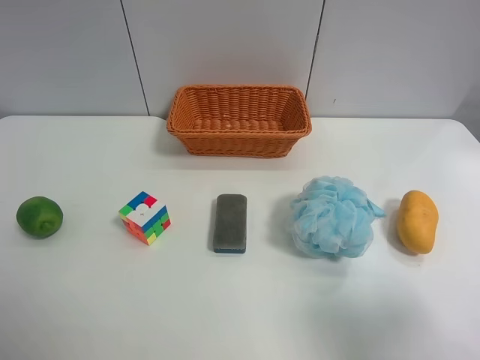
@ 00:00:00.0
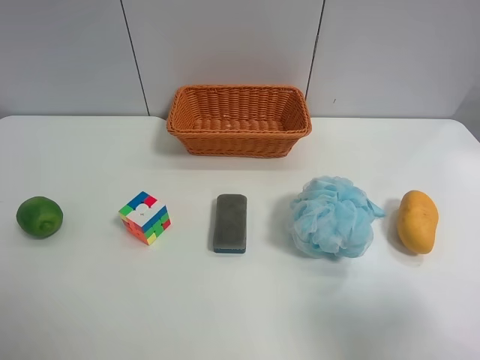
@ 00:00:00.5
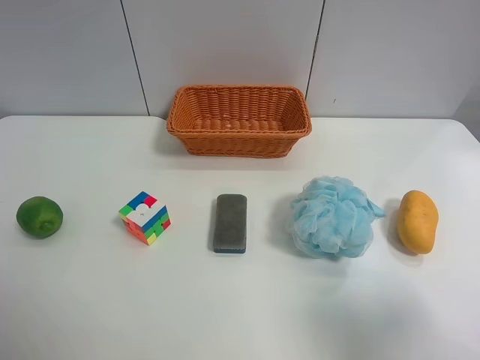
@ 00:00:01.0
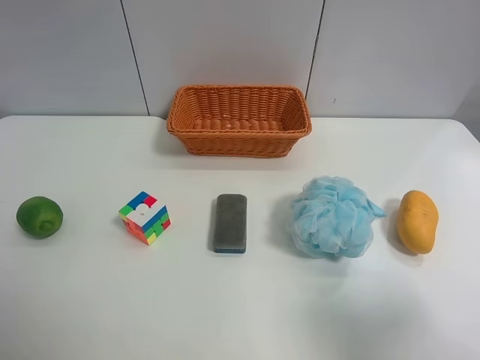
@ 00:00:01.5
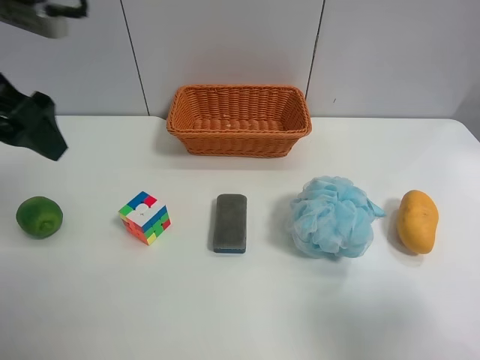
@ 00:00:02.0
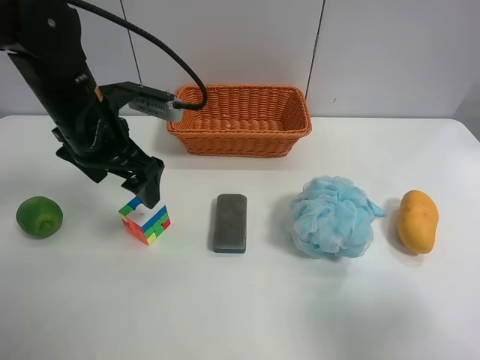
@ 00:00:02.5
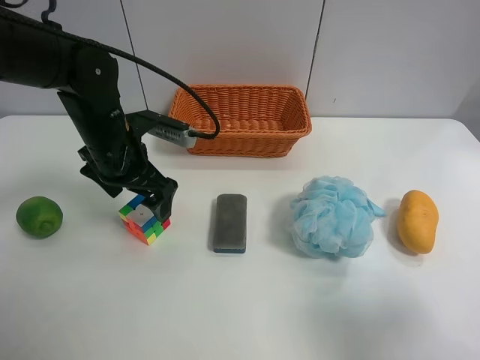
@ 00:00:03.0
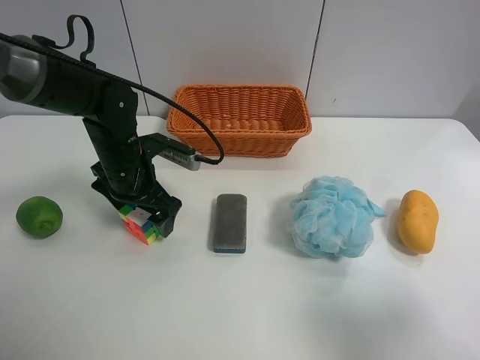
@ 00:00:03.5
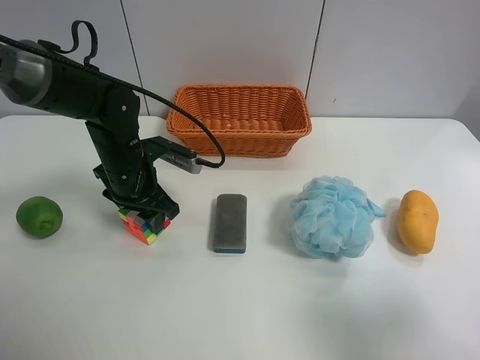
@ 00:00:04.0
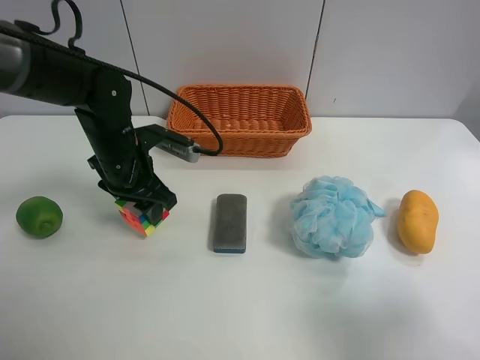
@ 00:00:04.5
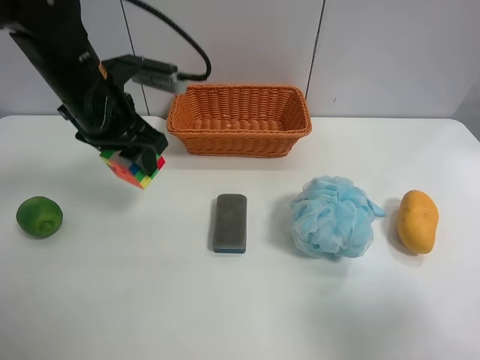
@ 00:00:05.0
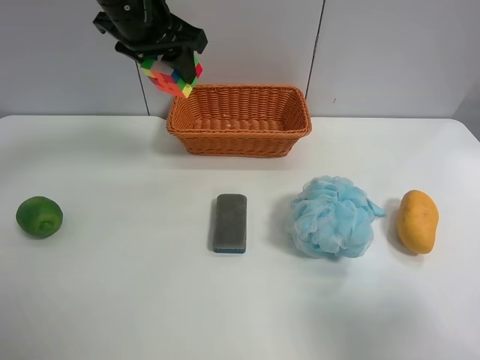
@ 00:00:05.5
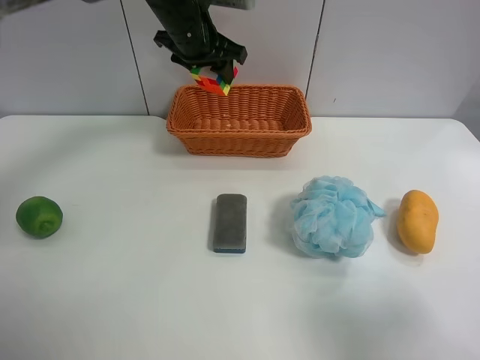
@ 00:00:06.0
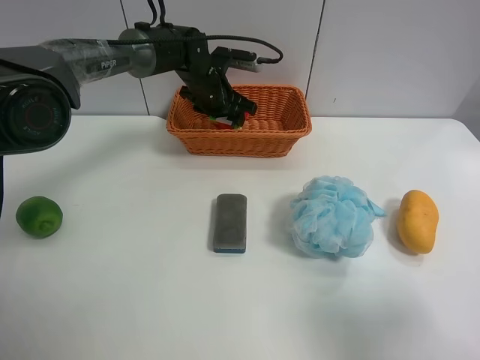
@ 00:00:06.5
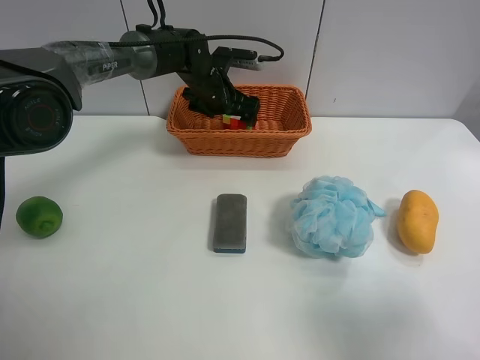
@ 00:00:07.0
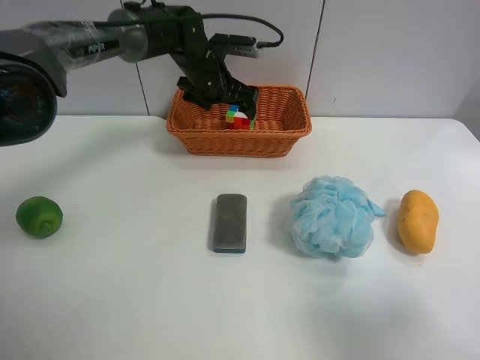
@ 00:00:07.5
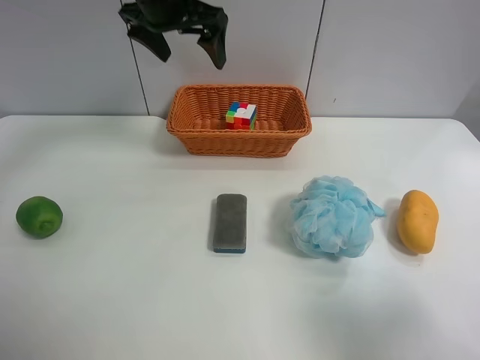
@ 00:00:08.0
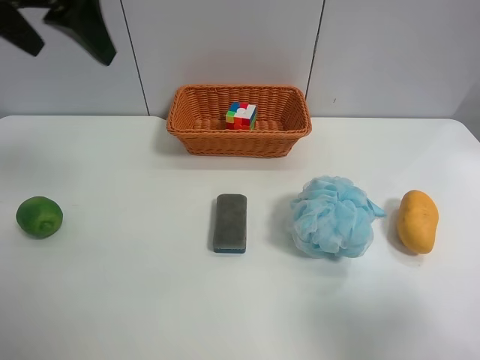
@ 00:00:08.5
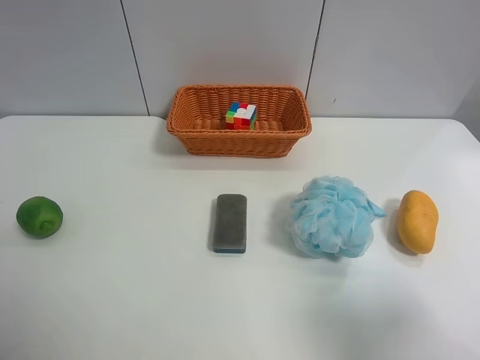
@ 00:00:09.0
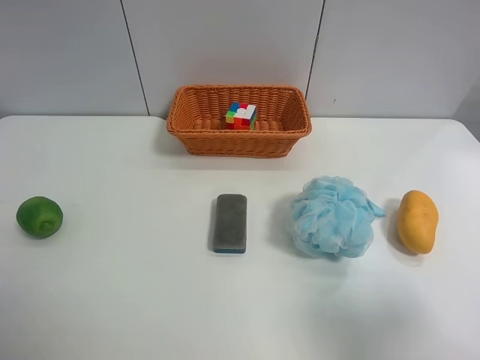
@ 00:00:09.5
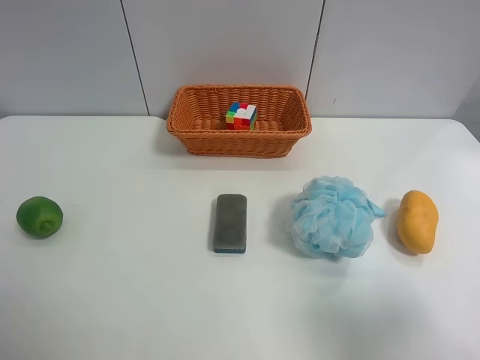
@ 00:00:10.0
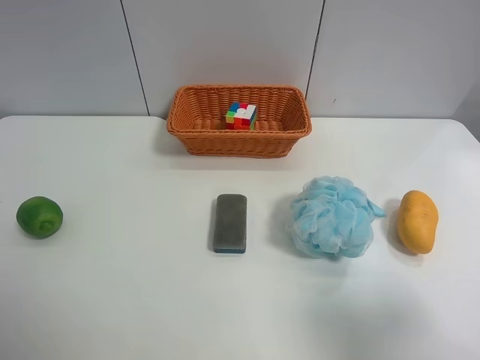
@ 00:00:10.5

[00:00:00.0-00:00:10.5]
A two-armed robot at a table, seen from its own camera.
Task of the whole recording: use the left gripper to grab items from the table and place them in the basket.
Step, 00:00:00.0 to 00:00:04.0: Grasp the Rubik's Cube with the left gripper.
Step, 00:00:04.5 to 00:00:07.0: Place the Rubik's Cube into the basket with the left gripper.
00:00:00.0 to 00:00:02.0: The left gripper shifts approximately 25 cm forward.
00:00:02.0 to 00:00:04.0: The left gripper shifts approximately 20 cm downward and forward, and closes up.
00:00:04.0 to 00:00:06.5: The left gripper goes approximately 20 cm forward and to the right, and reaches roughly 20 cm upward, then returns.
00:00:06.5 to 00:00:08.5: The left gripper is displaced upward, backward and to the left by roughly 35 cm, and opens.
00:00:08.5 to 00:00:10.5: The left gripper goes about 30 cm backward and downward.
